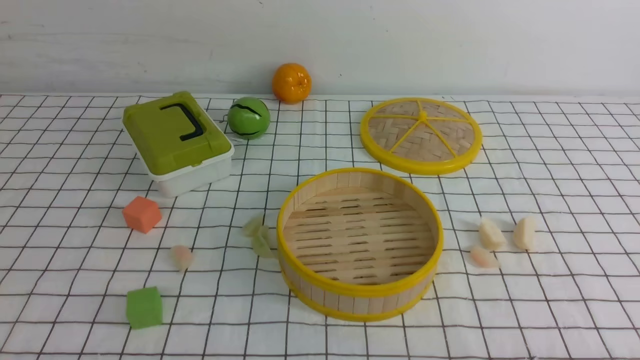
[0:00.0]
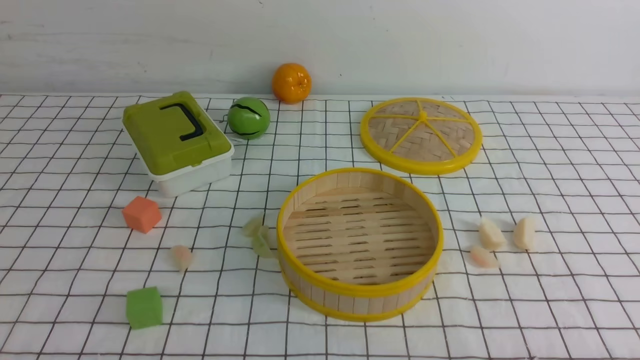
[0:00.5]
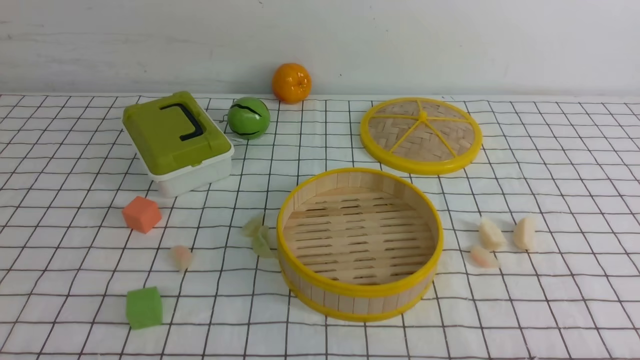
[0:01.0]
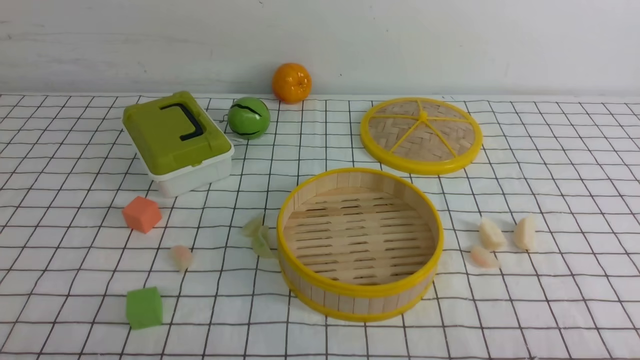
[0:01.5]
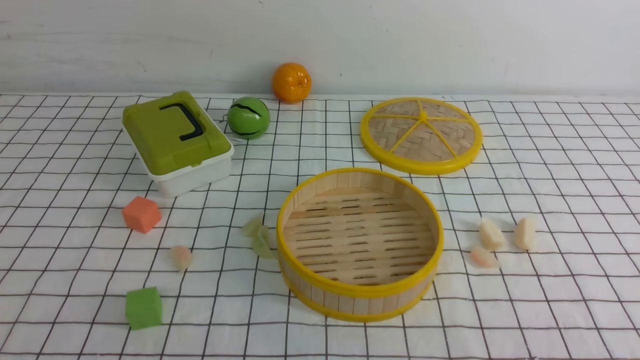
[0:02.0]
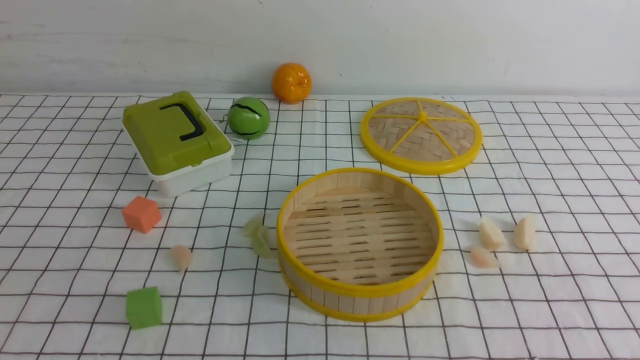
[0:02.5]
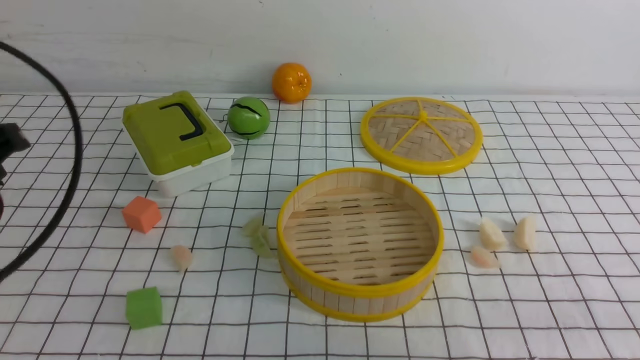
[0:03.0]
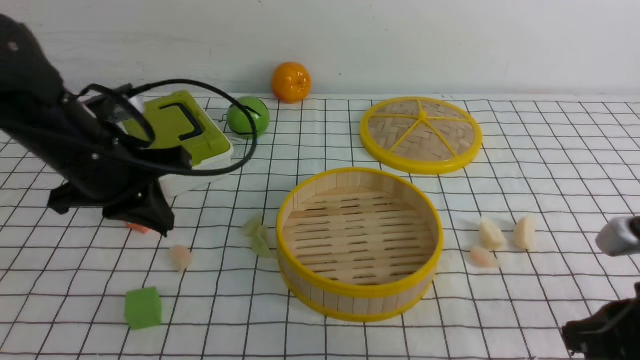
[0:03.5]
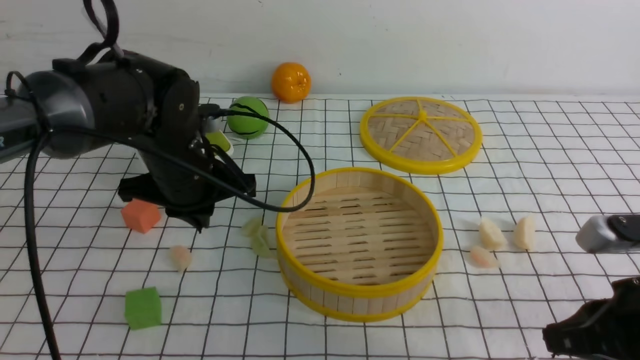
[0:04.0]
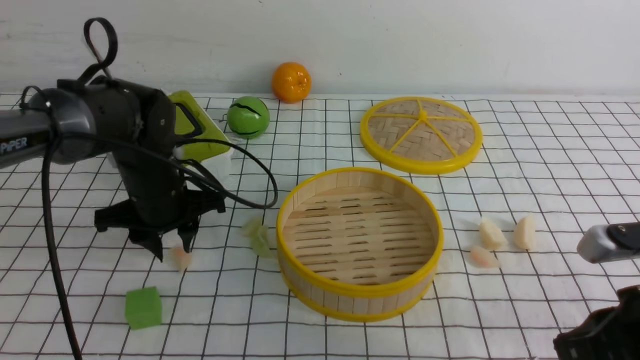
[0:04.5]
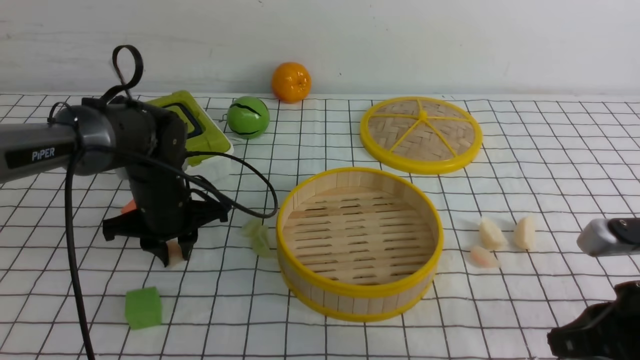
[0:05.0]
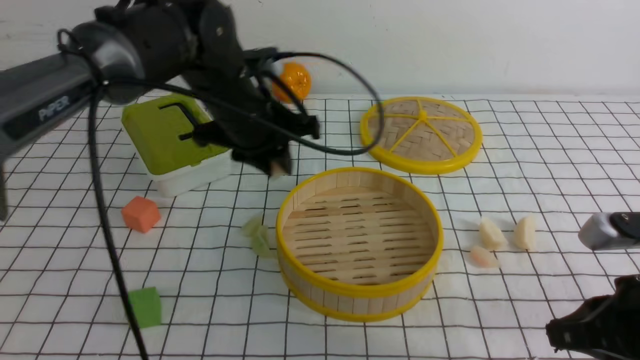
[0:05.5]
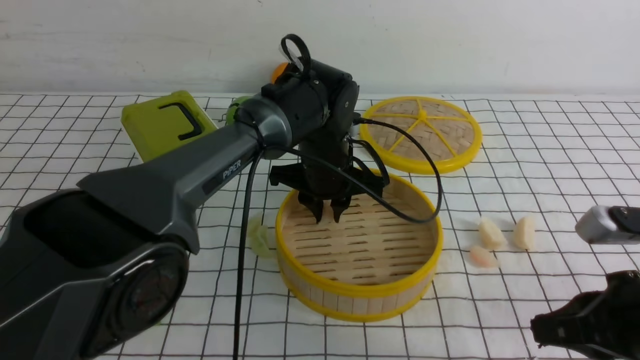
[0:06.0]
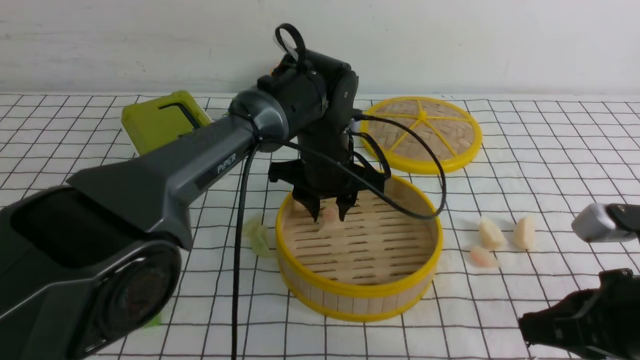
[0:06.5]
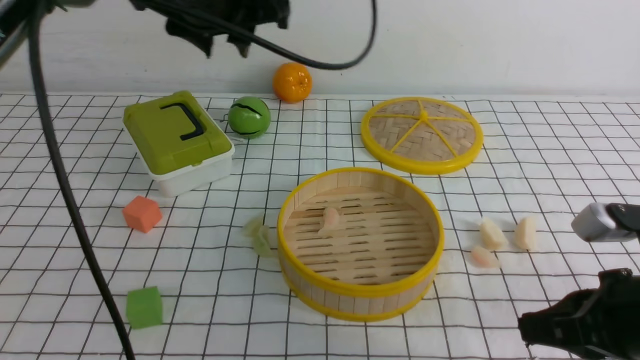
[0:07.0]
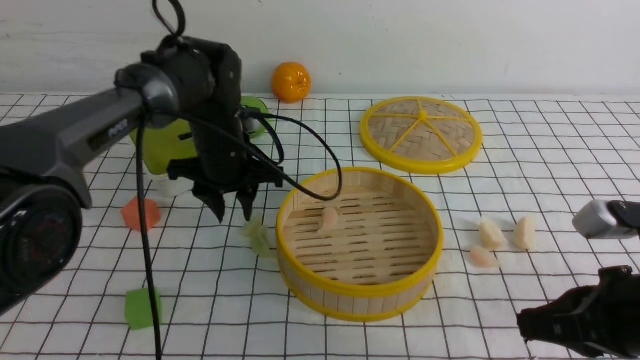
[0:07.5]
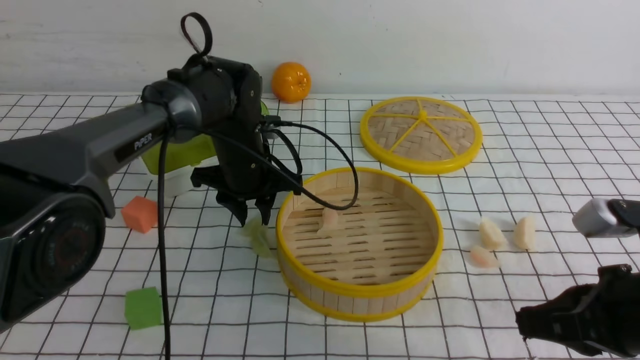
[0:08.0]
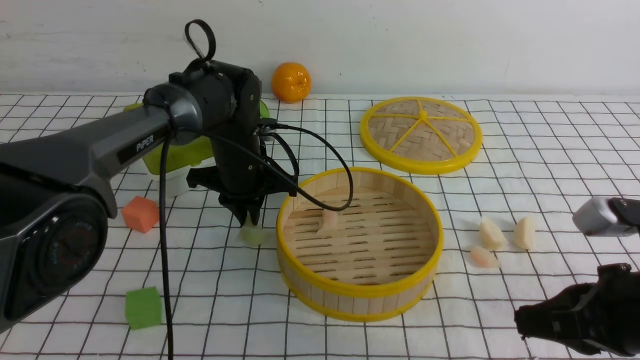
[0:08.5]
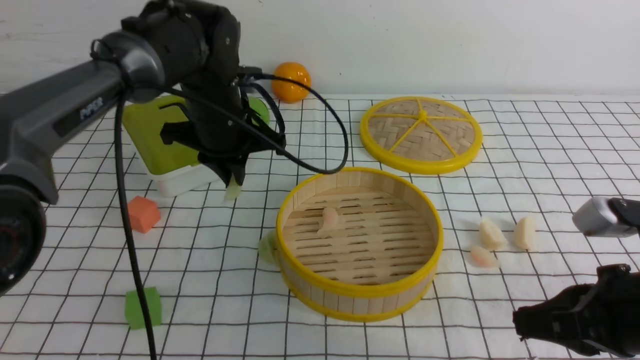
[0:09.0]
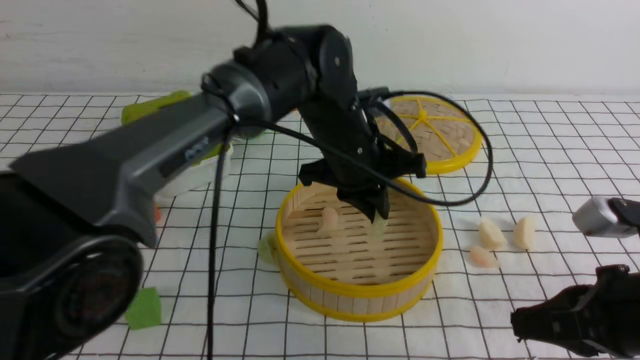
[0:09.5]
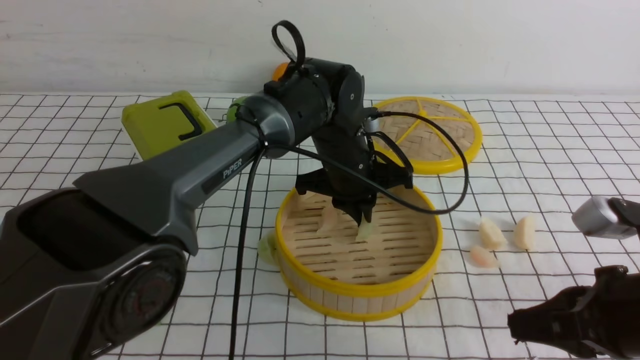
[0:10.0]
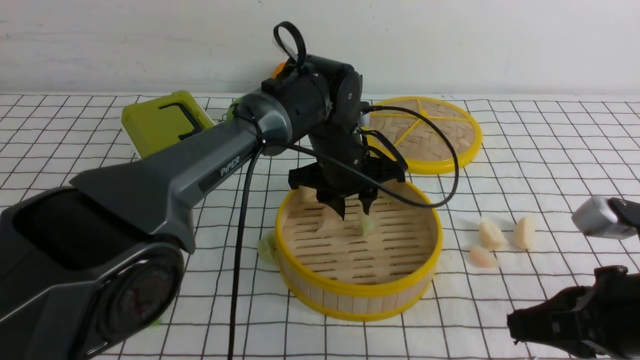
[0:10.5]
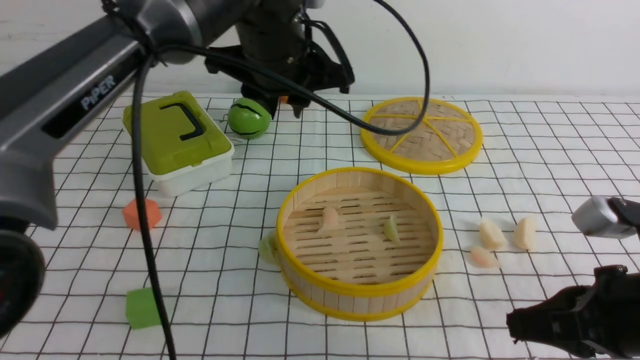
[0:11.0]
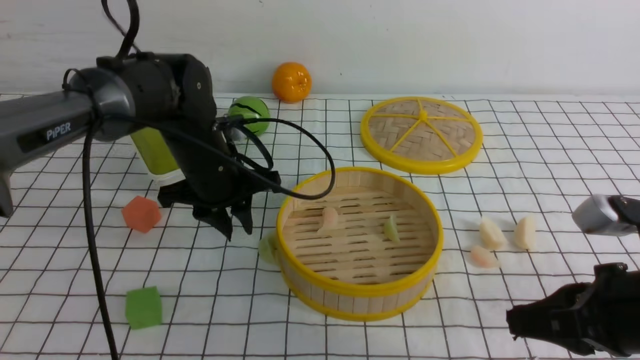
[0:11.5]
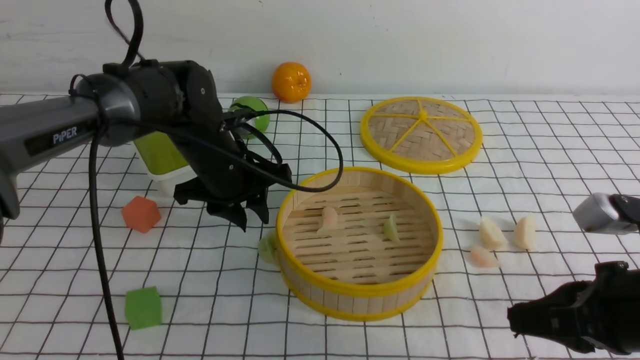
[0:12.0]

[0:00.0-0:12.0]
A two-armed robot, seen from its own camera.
Task of the whole recording: put the dumplings into the steamer on the table with the white tablecloth.
Step, 0:00.0 to 0:04.5: use the left arm to grab a dumpling.
Step, 0:05.5 to 0:06.5: use the left arm to put the dumpling into the steamer.
Step, 0:07.0 to 0:08.0: use the left arm to grab a dumpling.
Step, 0:09.0 to 0:10.5: use the left arm to put the dumpling into the steamer.
0:02.0 to 0:04.0: The right gripper heads forward, covering some 15 cm, and closes its fingers, while the left gripper shifts approximately 35 cm forward, and closes.
0:04.0 to 0:06.0: The left gripper shifts about 15 cm to the right.
0:06.0 to 0:08.0: The left gripper is displaced to the left by roughly 10 cm, and goes upward and returns, approximately 15 cm each way.
0:08.0 to 0:10.0: The left gripper travels to the right by approximately 10 cm, and closes up.
0:10.0 to 0:12.0: The left gripper travels to the left by roughly 15 cm, and opens.

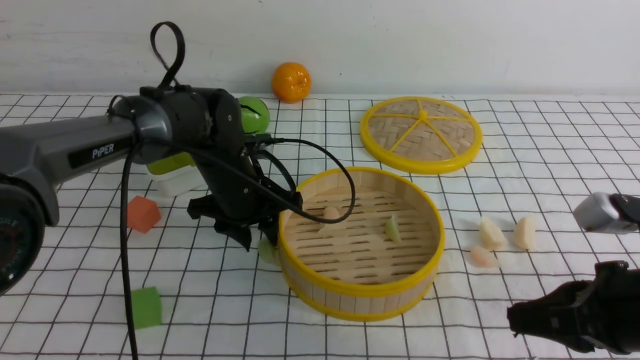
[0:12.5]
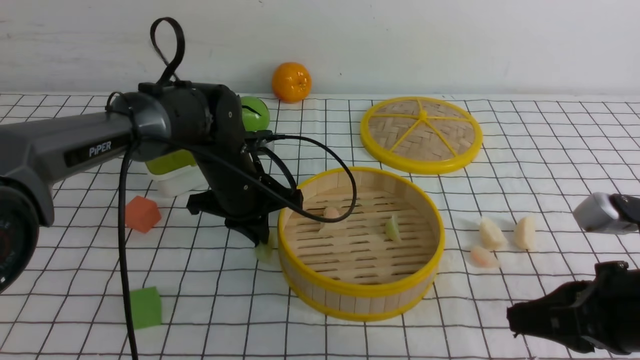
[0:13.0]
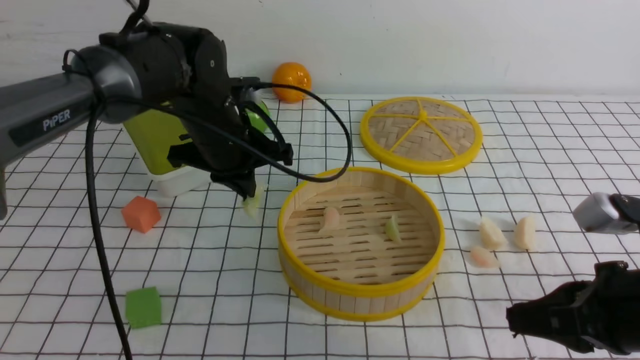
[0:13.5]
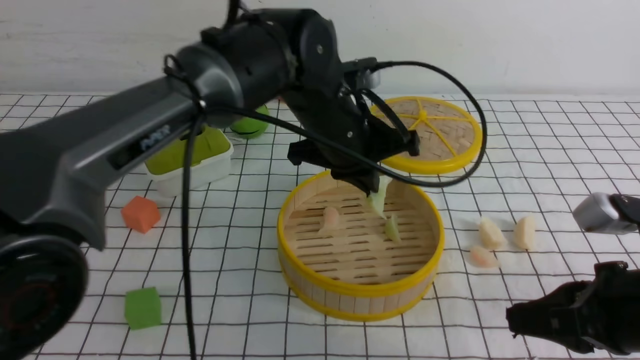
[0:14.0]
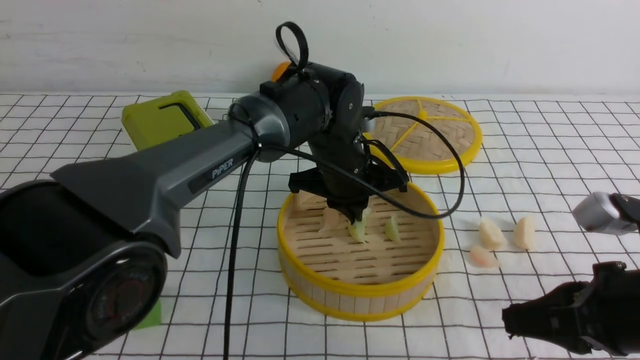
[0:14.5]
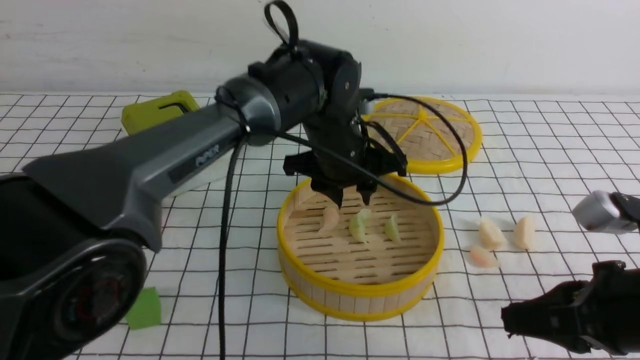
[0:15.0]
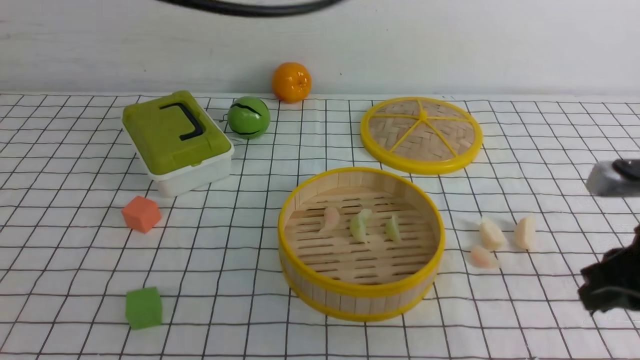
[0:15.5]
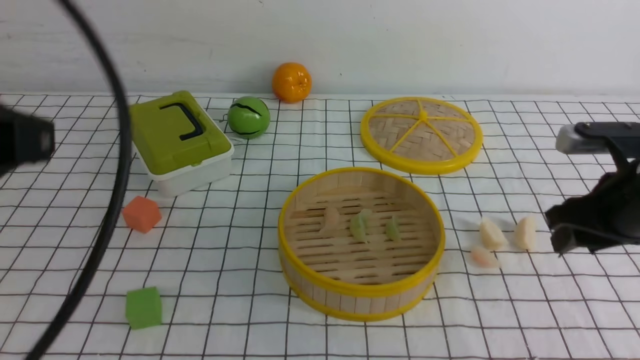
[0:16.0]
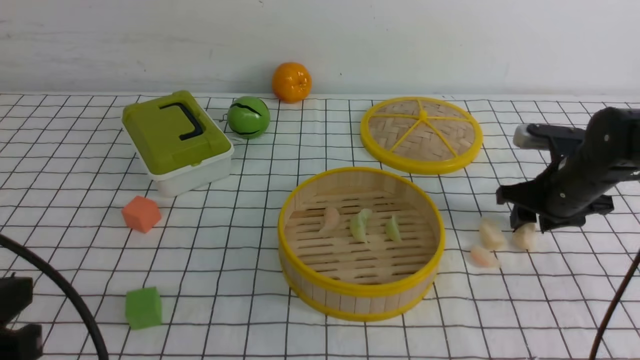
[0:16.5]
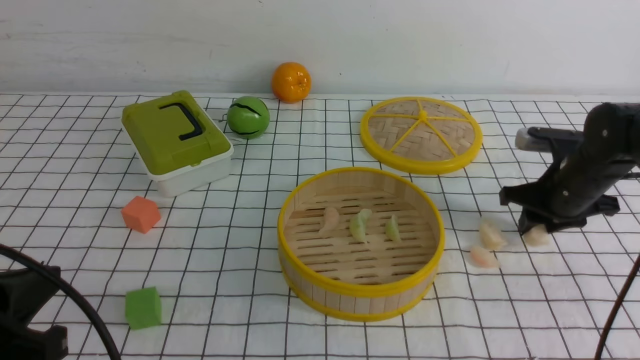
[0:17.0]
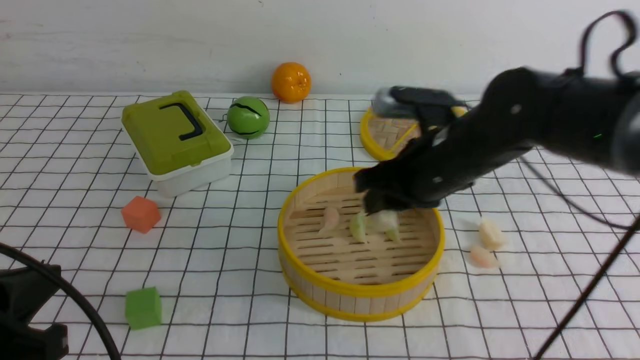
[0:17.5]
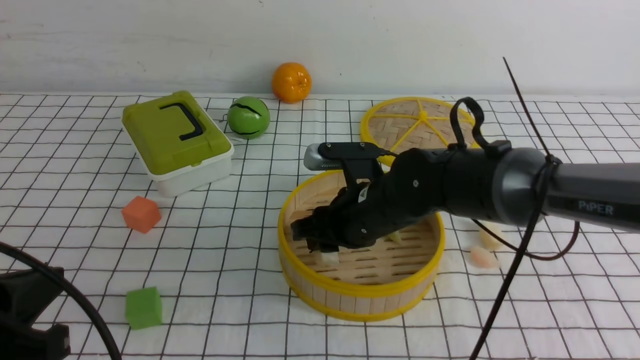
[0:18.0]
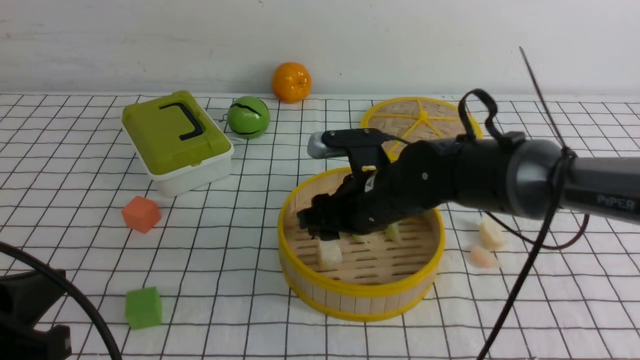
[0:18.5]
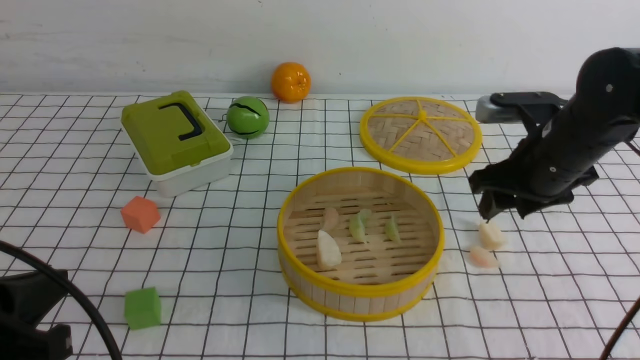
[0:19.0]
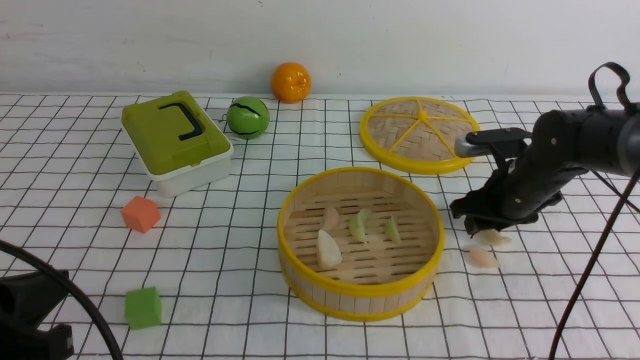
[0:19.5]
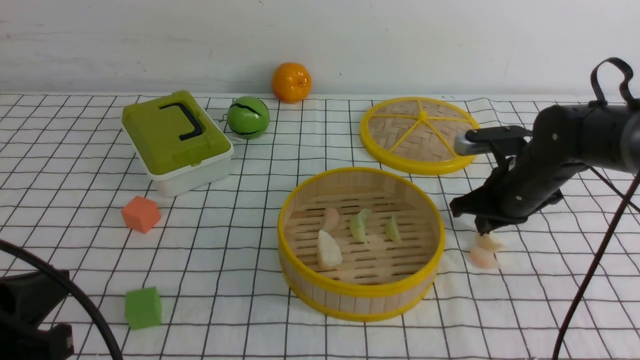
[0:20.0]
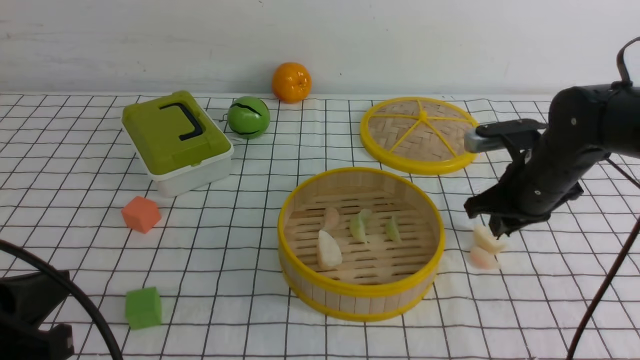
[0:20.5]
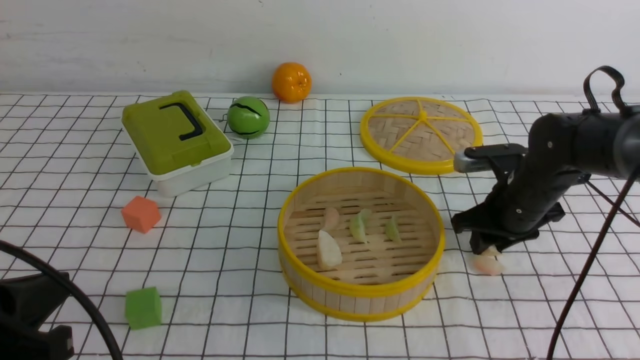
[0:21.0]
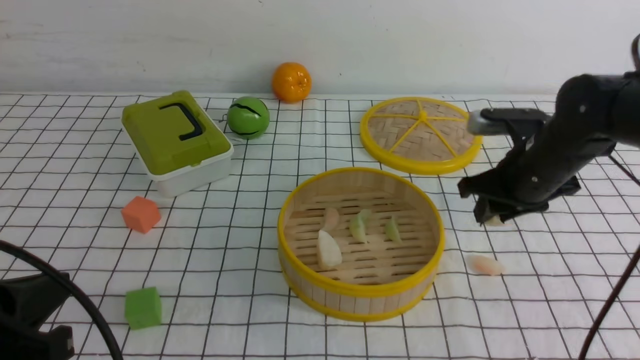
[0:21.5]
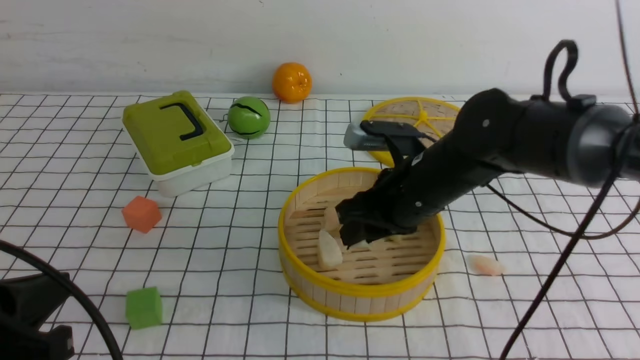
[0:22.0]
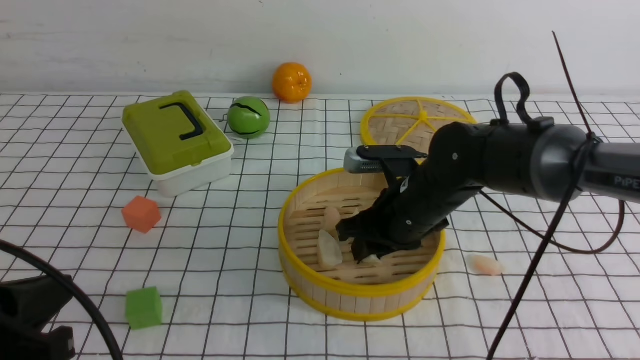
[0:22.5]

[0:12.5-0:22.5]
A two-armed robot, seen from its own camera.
Task of the whole recording: put the dumplings into the steamer on the table with the white tablecloth.
Step, 0:13.5 to 0:15.0: use the left arm to put the dumpling into the steamer.
Step, 0:15.5 to 0:16.5: use the right arm to grab a dumpling.
Step, 0:17.0 to 0:18.0: use the right arm to put the dumpling into the steamer.
Step, 0:18.5 to 0:21.0: use the right arm to grab a dumpling.
0:12.5 to 0:14.5: The left gripper is displaced to the right by about 15 cm, and closes its fingers.
0:14.5 to 0:16.5: The left gripper is displaced backward and to the left by approximately 40 cm, and opens, then closes again. The right gripper is displaced forward by about 20 cm, and opens up.
0:16.5 to 0:18.5: The right gripper travels to the left by about 20 cm.
0:18.5 to 0:20.5: The right gripper heads to the right, covering approximately 15 cm, and closes its fingers.
0:20.5 to 0:22.5: The right gripper shifts about 15 cm to the left.
